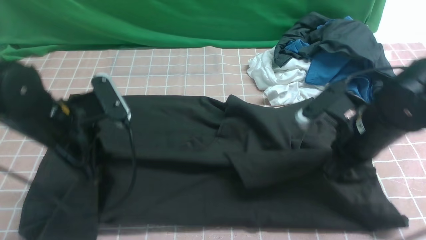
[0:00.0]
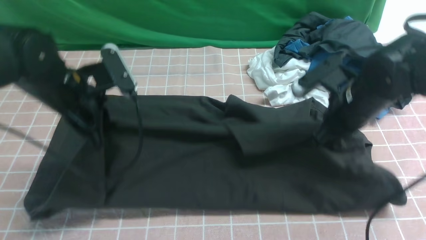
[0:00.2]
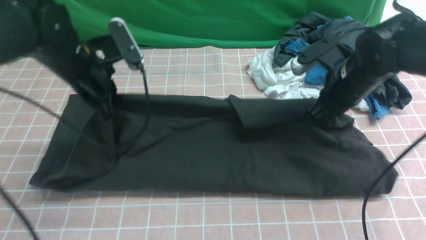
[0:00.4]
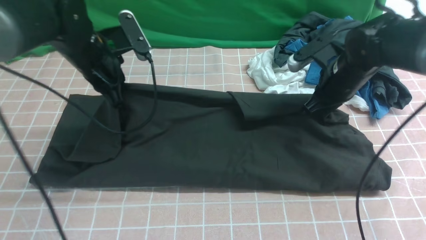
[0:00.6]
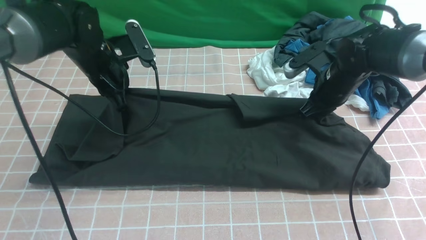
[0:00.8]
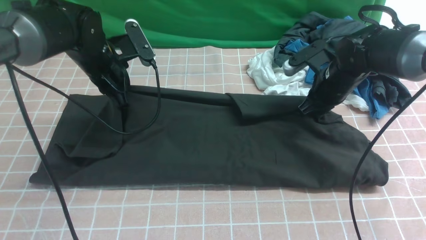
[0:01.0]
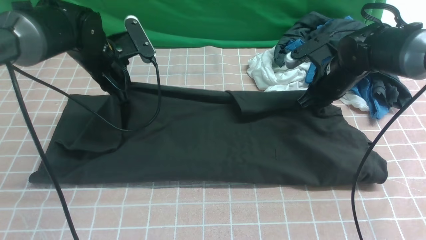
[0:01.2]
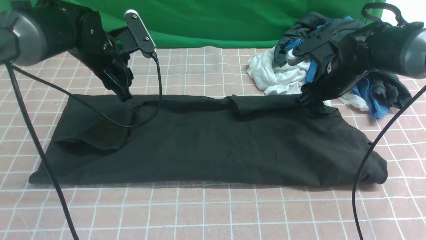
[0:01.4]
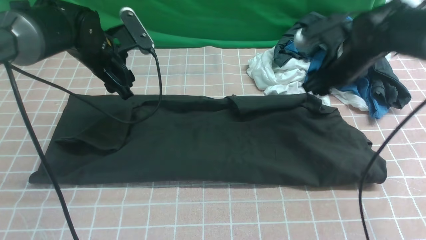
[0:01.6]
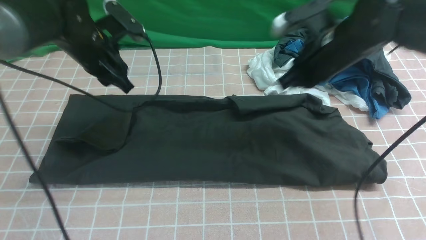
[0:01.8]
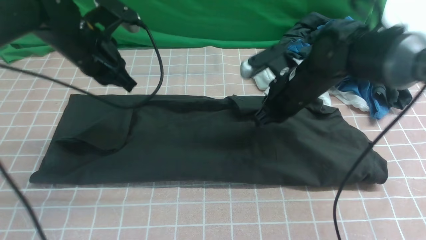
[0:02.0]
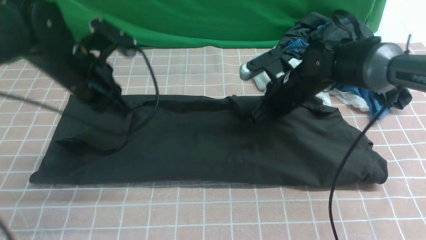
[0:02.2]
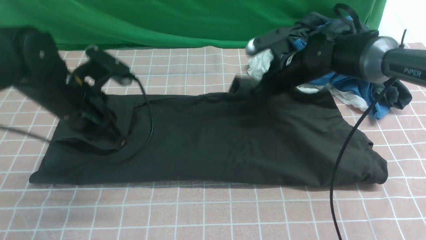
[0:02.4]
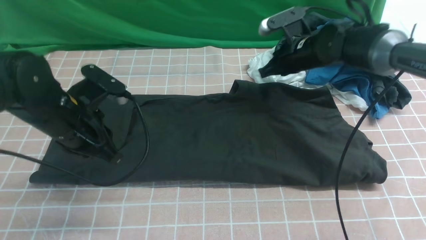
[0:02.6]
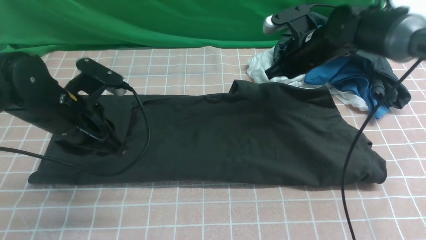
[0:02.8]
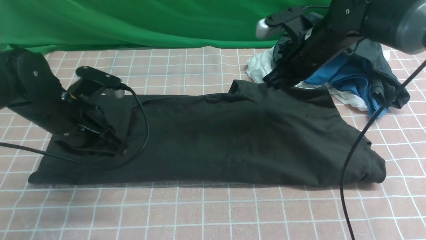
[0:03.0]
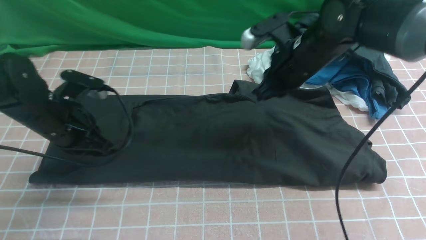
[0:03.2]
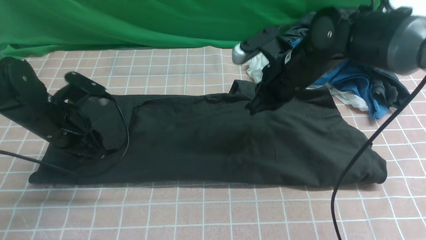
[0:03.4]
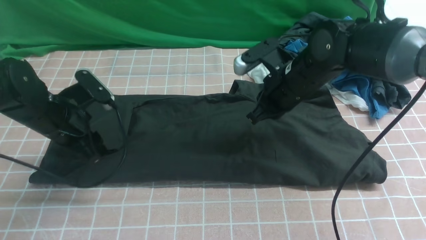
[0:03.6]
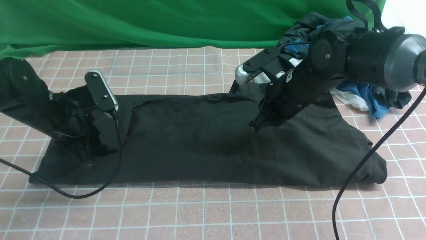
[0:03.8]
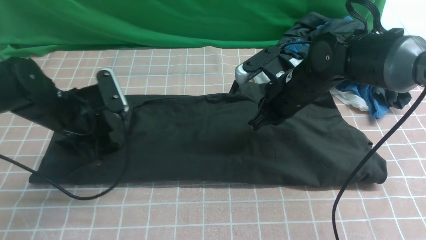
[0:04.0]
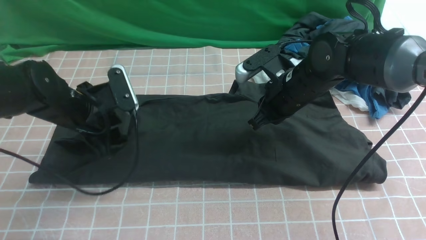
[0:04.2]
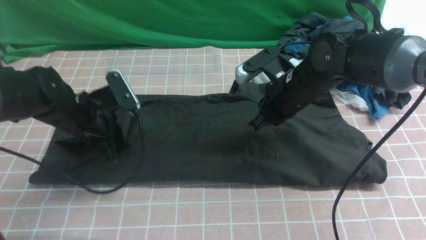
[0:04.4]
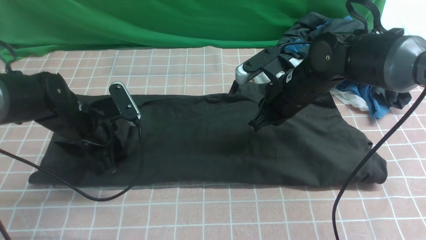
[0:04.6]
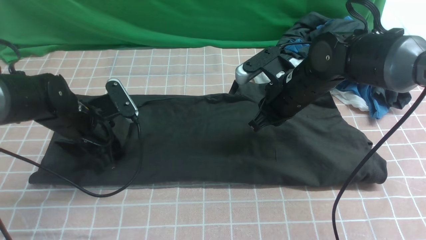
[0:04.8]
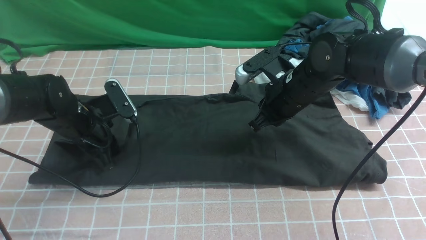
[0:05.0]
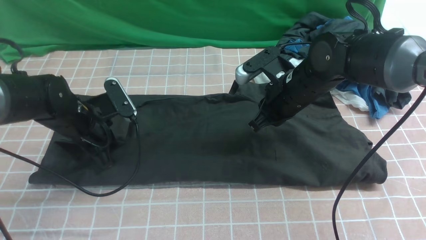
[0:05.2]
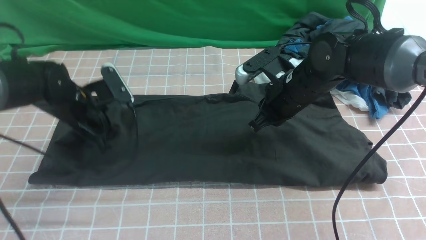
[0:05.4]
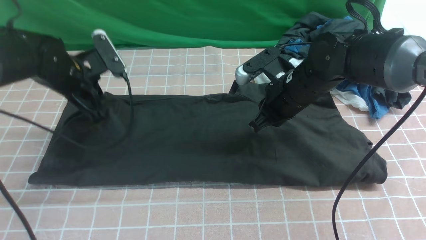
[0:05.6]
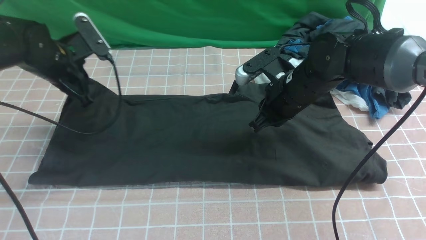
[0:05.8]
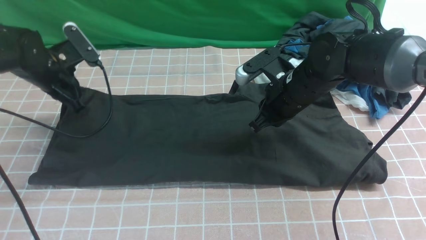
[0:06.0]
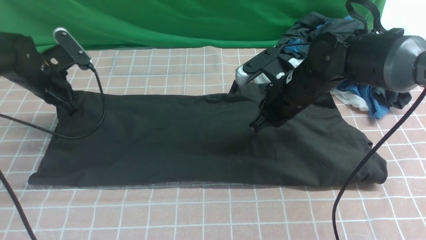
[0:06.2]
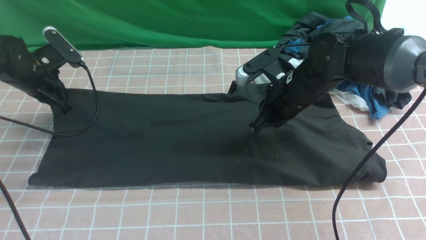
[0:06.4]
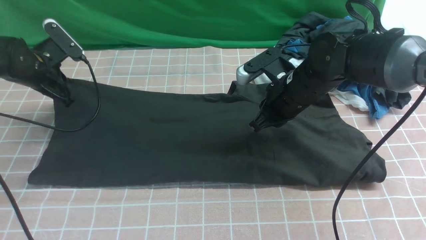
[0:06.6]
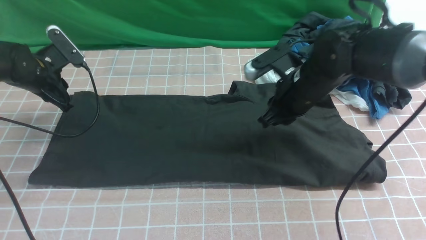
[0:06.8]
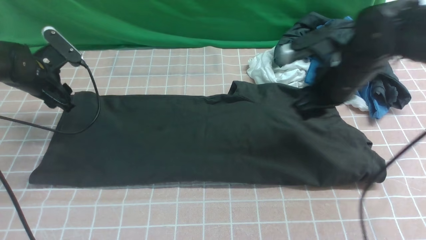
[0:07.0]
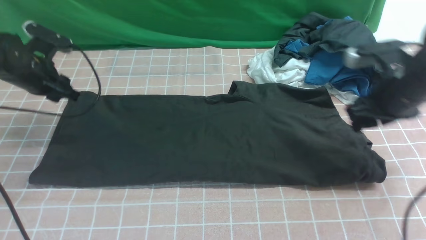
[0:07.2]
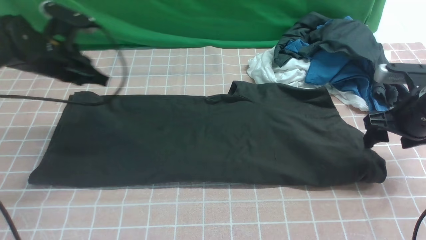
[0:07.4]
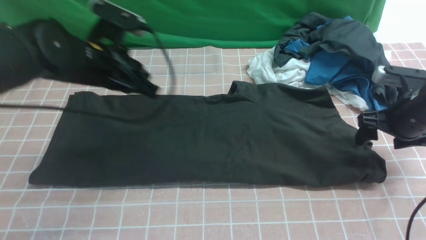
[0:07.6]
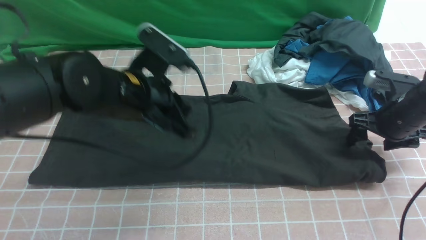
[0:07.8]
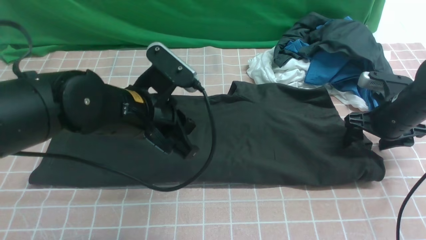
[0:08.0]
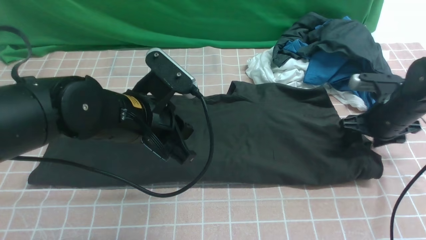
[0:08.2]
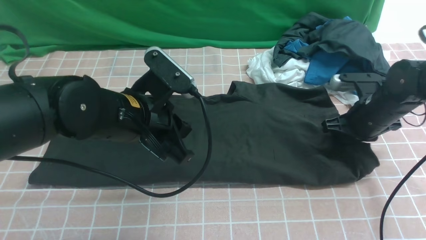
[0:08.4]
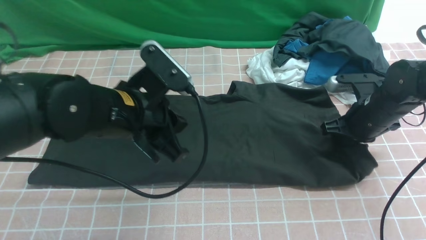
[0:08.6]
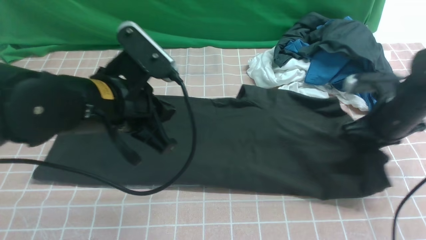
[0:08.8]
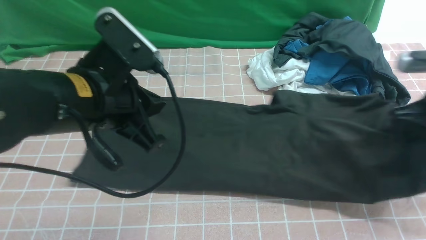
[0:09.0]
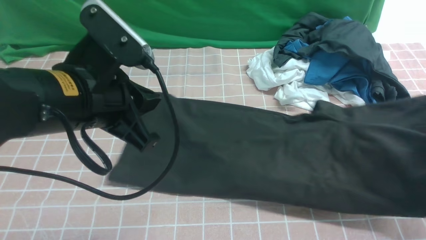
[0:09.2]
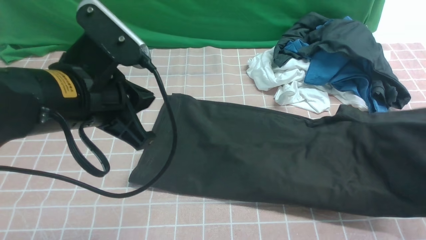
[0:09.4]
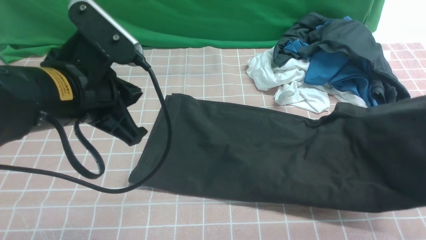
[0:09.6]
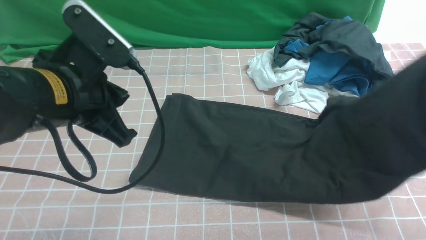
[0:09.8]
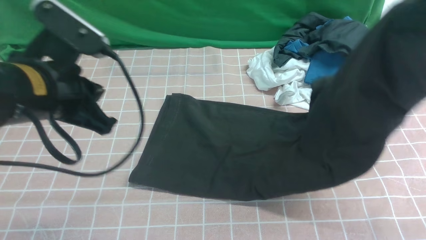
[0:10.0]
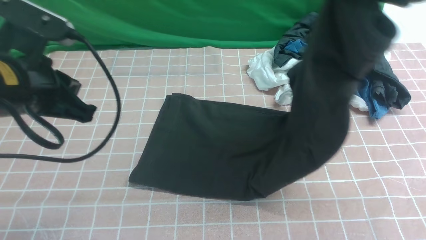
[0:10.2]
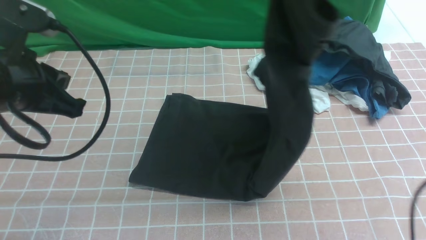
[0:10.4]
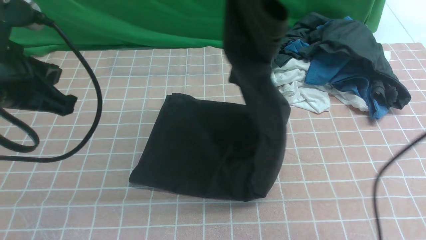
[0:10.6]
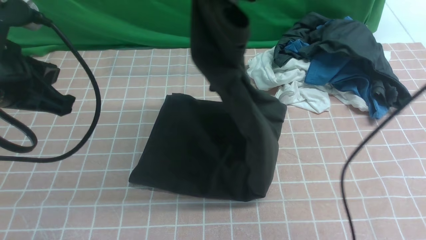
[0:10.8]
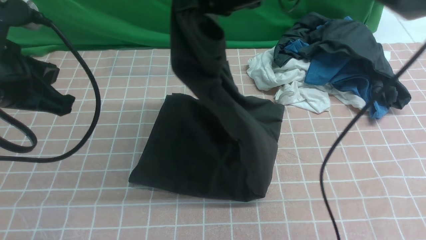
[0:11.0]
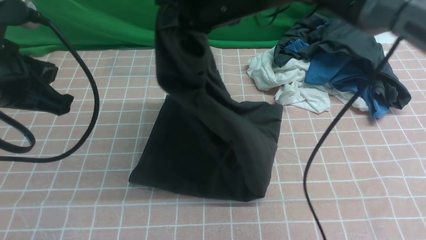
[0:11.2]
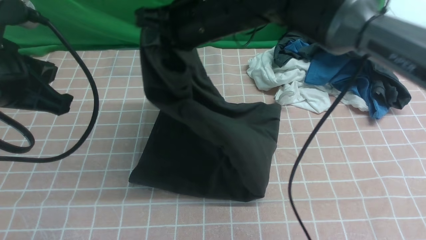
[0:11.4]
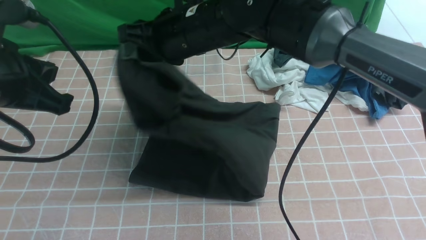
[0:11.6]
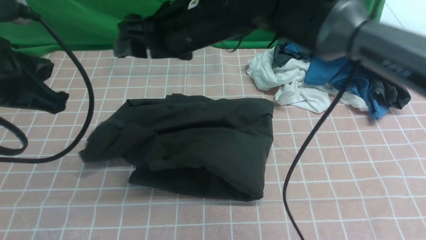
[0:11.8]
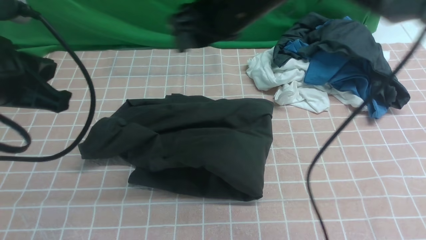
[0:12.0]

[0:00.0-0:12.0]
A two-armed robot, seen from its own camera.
Step, 0:00.0 to 0:01.2: use both arms to drag the lower edge of the fabric forward and fold it over the upper edge.
Step, 0:01.4 to 0:08.4: use the right arm to clamp the right edge of the fabric.
0:00.0 to 0:01.6: The two grippers go roughly 15 cm forward. The left gripper opens up. Meanwhile the right gripper opens.
0:01.6 to 0:03.0: The right gripper travels forward and back again, approximately 5 cm each way, and closes up. Meanwhile the left gripper goes some 10 cm backward, and closes.
0:03.0 to 0:04.4: The left gripper ends up roughly 5 cm from where it was, and opens; the right gripper shifts by approximately 5 cm.
0:04.4 to 0:06.0: The left gripper heads to the left and forward, covering some 10 cm, and closes up.
0:06.0 to 0:07.6: The right gripper goes roughly 20 cm to the right, and opens its fingers, while the left gripper travels to the right and backward by about 15 cm, and opens, then closes once more.
0:07.6 to 0:09.0: The left gripper shifts some 10 cm backward and upward, while the right gripper shifts roughly 5 cm upward, and closes its fingers.
0:09.0 to 0:10.4: The right gripper travels to the left and upward by about 25 cm; the left gripper moves to the left, approximately 10 cm.
0:10.4 to 0:12.0: The right gripper moves to the left and downward, about 15 cm, and opens its fingers.

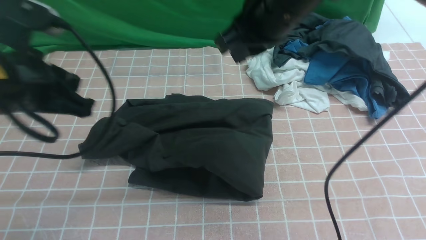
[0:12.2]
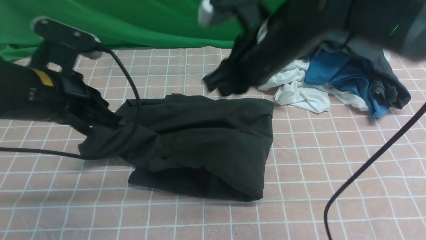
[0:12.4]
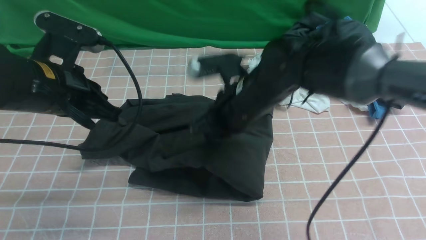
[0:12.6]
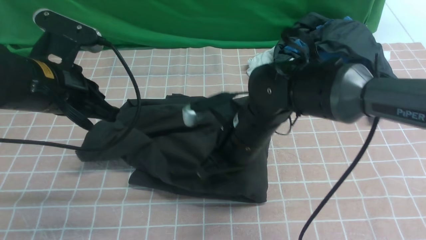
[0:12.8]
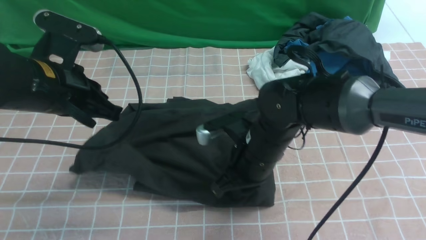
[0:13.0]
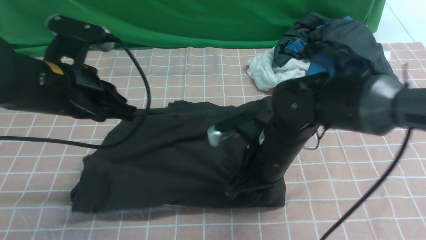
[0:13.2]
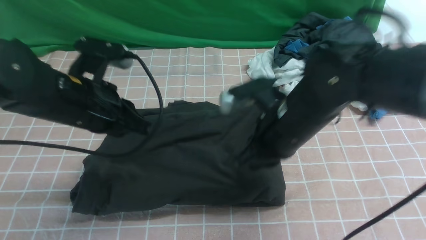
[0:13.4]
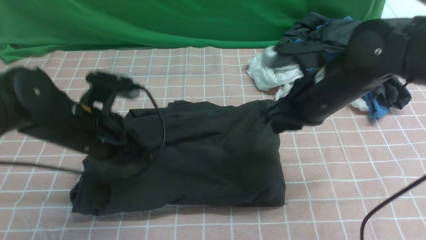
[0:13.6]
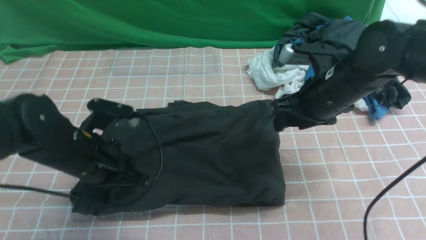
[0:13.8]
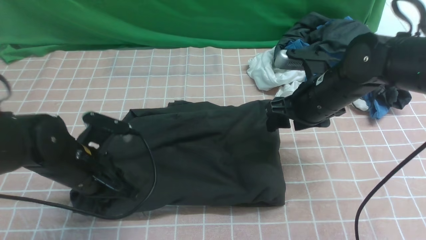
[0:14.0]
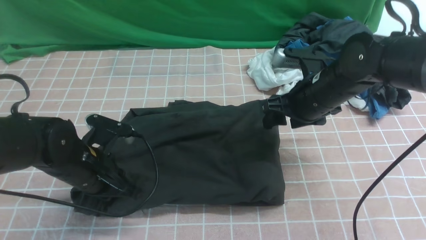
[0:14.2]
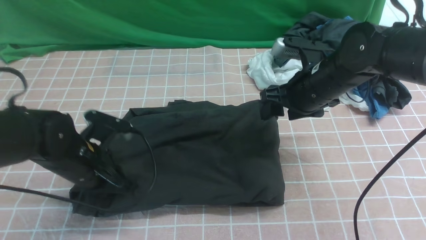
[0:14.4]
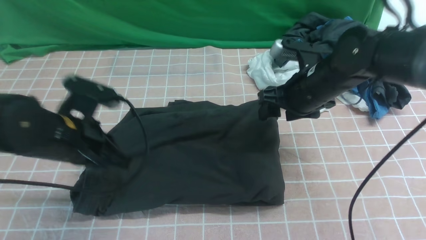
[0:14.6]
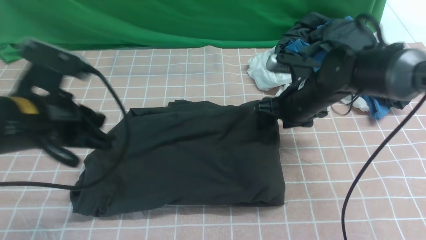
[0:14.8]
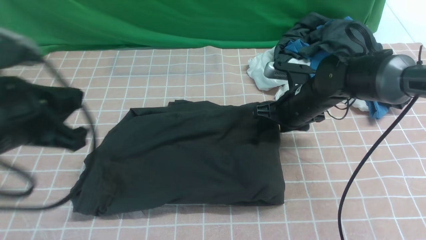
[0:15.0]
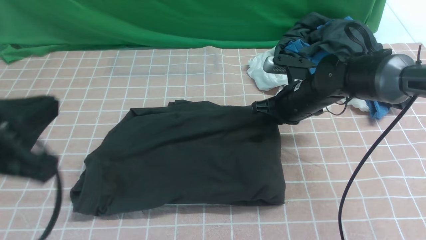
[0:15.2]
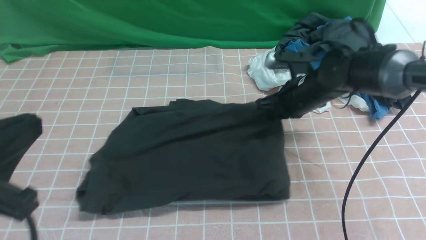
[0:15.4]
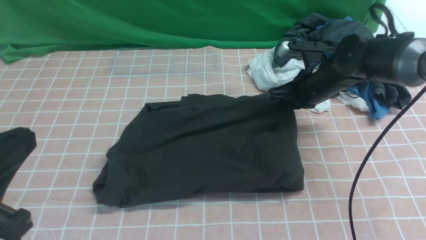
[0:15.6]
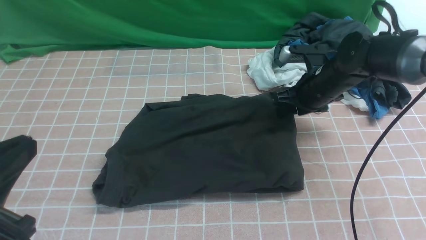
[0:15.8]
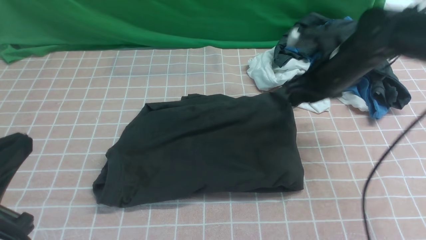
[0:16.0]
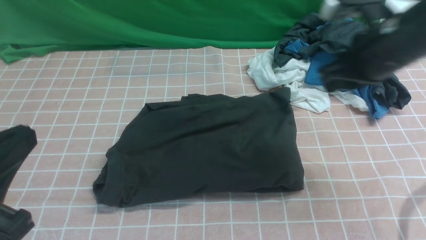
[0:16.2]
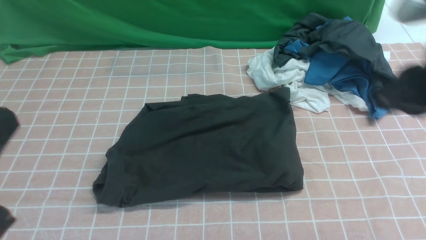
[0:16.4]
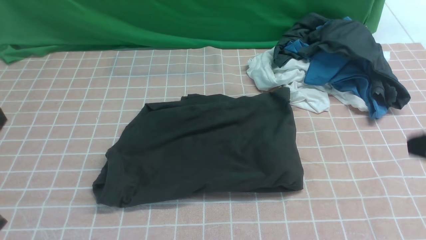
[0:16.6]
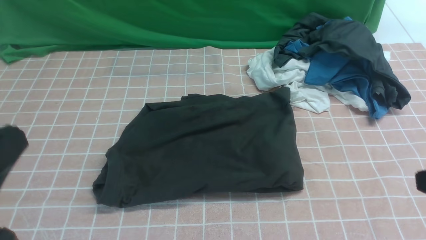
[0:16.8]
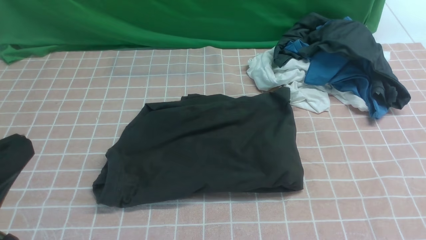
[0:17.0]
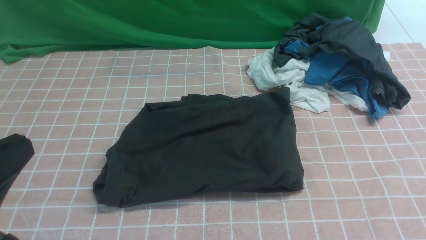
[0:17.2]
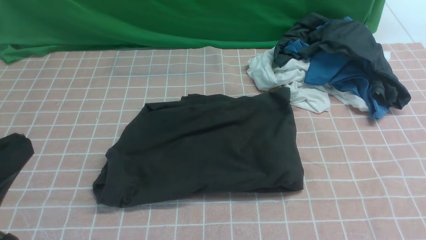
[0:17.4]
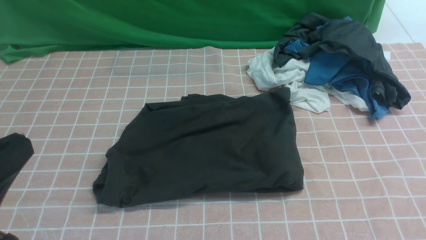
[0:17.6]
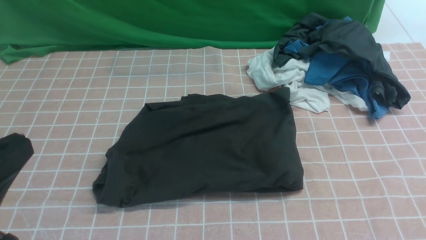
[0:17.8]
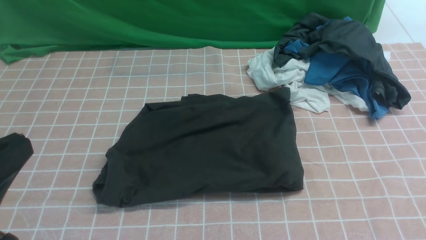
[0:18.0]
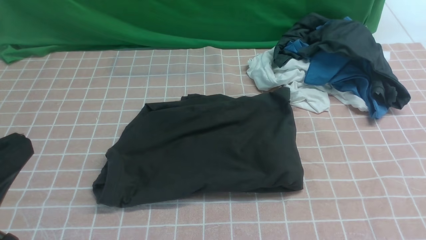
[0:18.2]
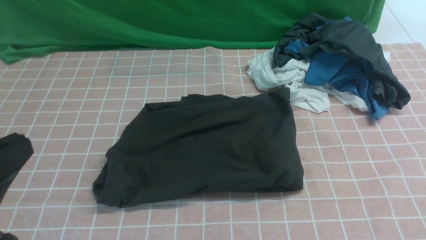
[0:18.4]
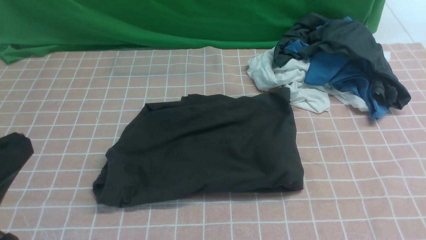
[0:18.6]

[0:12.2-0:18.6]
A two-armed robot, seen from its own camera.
0:12.2 to 0:13.8: The right gripper shifts roughly 15 cm downward and to the right, and opens. The left gripper is displaced downward by some 15 cm.
0:13.8 to 0:15.4: The left gripper moves backward and upward, roughly 20 cm. The right gripper moves forward and downward, approximately 10 cm, and closes up.
0:15.4 to 0:17.0: The right gripper travels backward and upward by roughly 35 cm, and opens, then closes once more.
